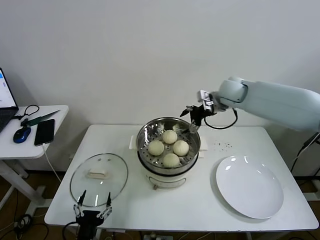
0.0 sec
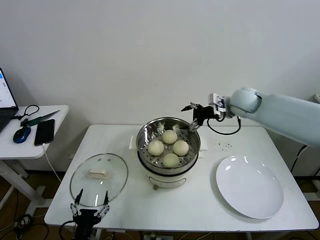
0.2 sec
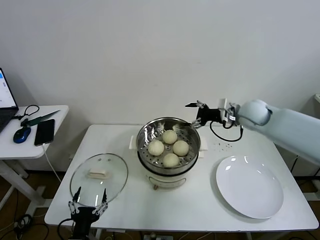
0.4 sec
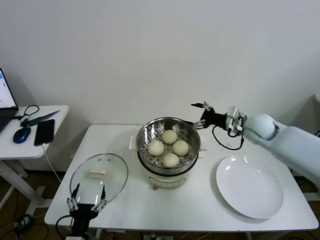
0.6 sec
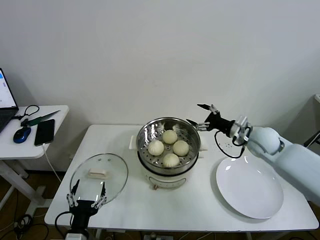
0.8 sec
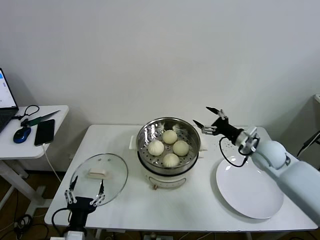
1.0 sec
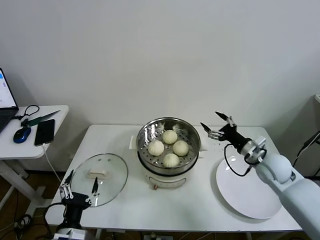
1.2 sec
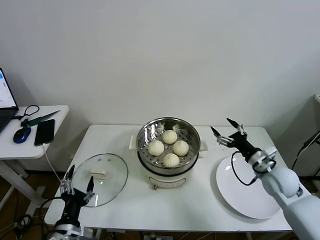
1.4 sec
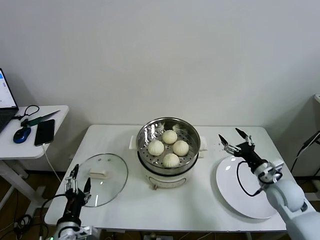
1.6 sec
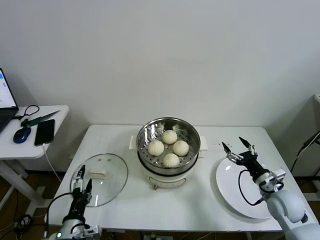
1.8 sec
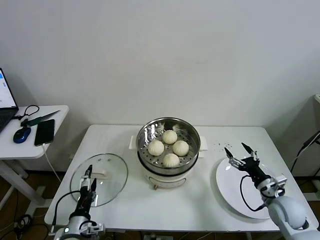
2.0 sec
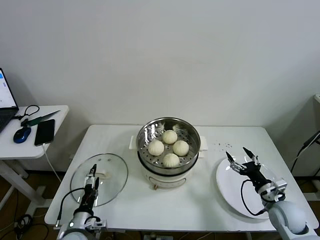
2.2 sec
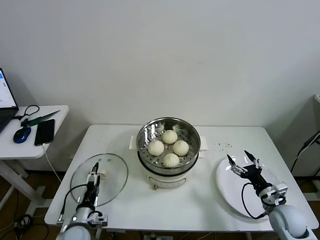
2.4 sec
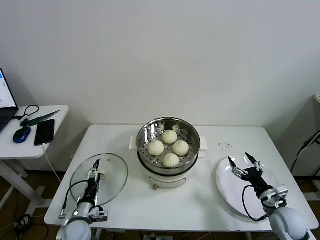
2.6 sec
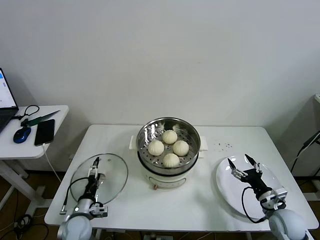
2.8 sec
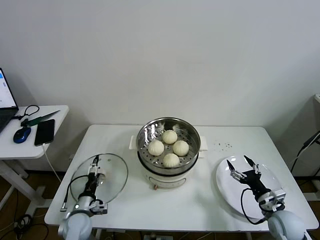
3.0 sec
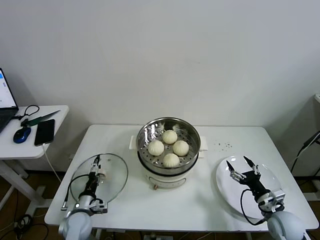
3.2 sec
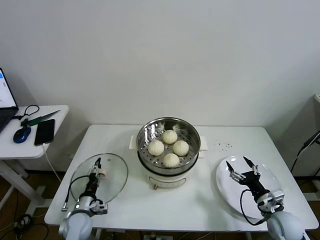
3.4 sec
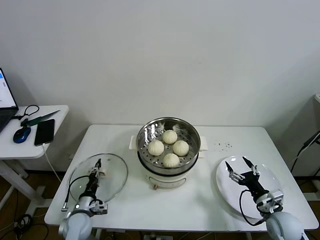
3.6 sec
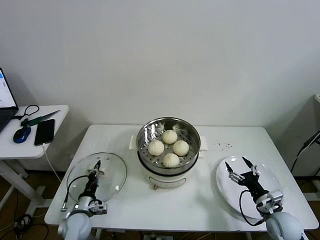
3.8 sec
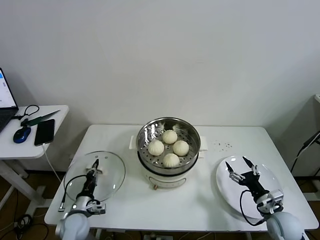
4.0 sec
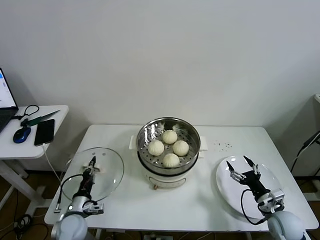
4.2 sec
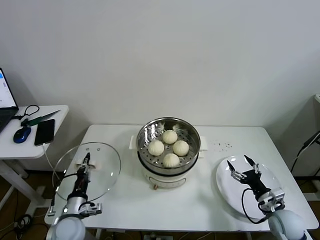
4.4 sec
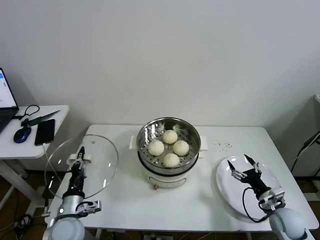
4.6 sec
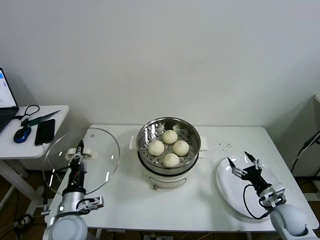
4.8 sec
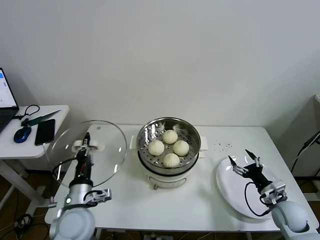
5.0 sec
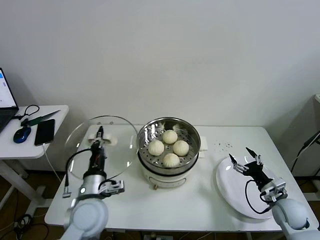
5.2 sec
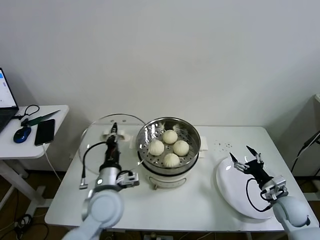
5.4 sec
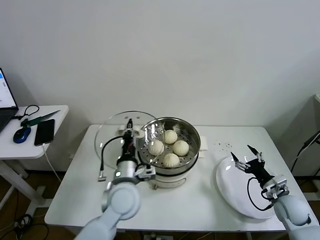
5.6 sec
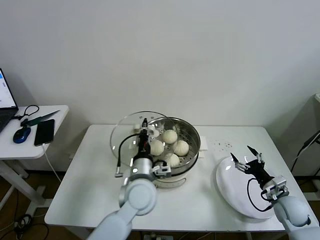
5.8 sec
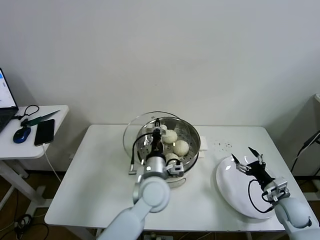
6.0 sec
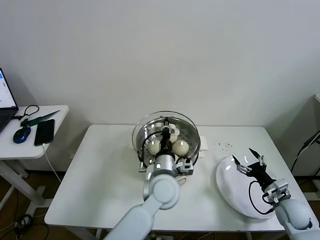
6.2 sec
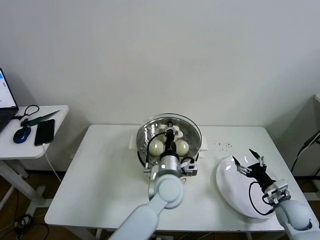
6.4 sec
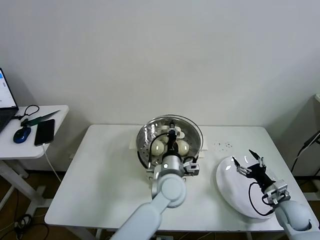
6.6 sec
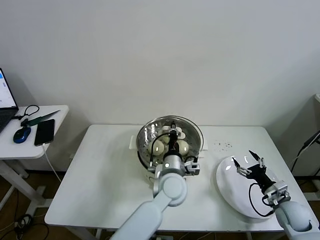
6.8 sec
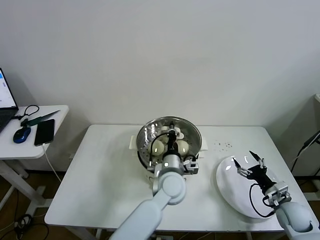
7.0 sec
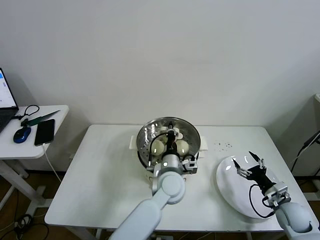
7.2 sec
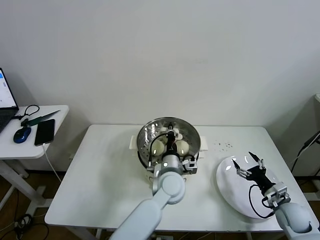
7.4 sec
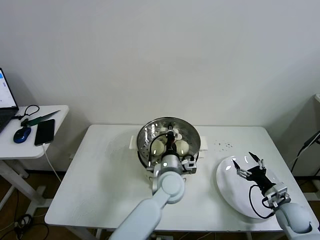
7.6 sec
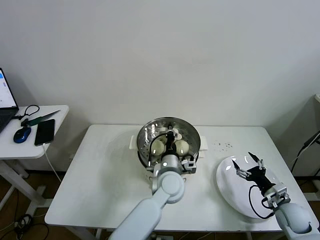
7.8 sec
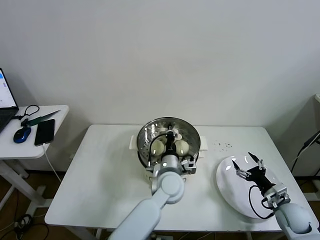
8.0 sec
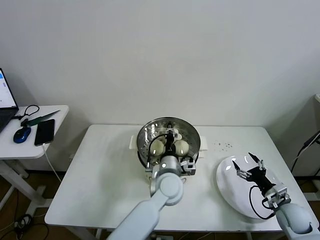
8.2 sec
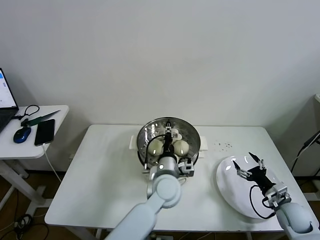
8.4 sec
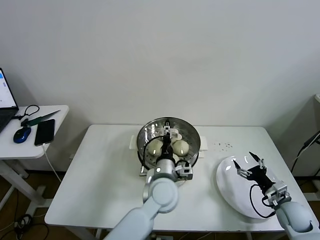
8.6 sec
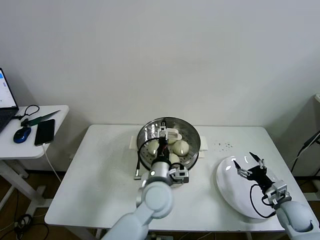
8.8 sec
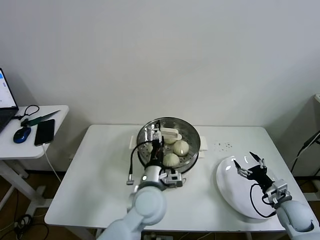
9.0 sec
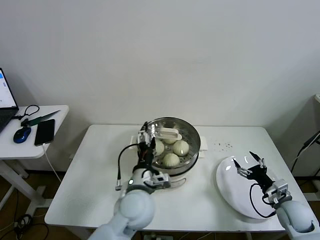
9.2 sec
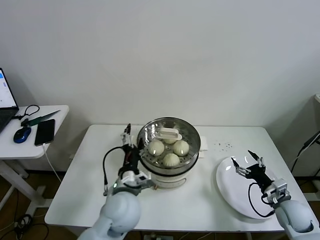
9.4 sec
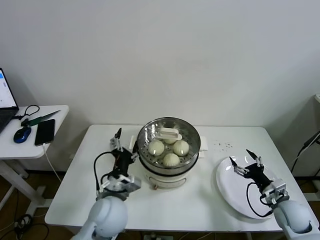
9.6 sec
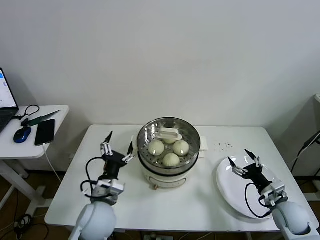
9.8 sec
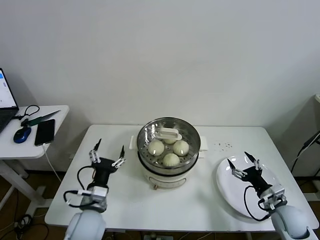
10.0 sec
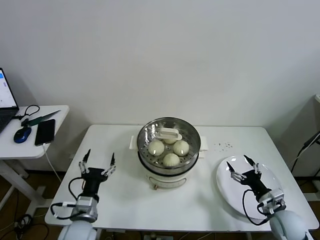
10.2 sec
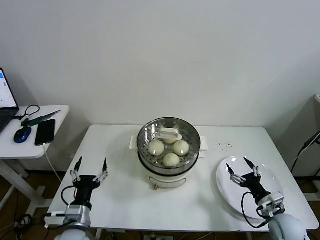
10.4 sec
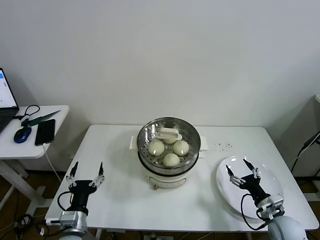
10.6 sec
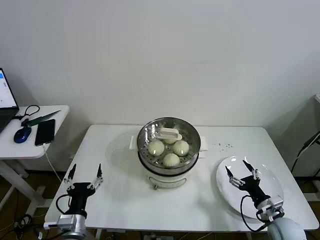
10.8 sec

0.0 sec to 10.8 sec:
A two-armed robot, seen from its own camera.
Task of the whole recording: take steamed baozi put them in steamer then cover it.
Step, 0.0 sec to 3.6 sec: Grasp the pot lid with left gripper.
Step, 4.0 sec to 8.2 sec: Place the pot lid on the steamer with left gripper.
0.0 sec to 1.6 sec: The right gripper heads backward, downward and to the right, covering approximately 35 cm. The left gripper ends up roughly 5 cm from where it was.
1.6 sec to 3.0 sec: The left gripper travels downward and forward by roughly 15 cm, while the right gripper travels downward and backward by approximately 10 cm.
3.0 sec to 4.6 sec: The left gripper is displaced upward by roughly 10 cm, and closes its fingers.
4.6 sec to 6.2 sec: The left gripper shifts some 30 cm to the right.
6.2 sec to 7.8 sec: The left gripper moves roughly 5 cm.
7.8 sec to 9.2 sec: The left gripper moves to the left and backward, about 10 cm, and opens its fingers.
9.2 sec to 10.8 sec: The left gripper heads to the left, backward and downward, covering approximately 25 cm. Meanwhile the right gripper ends up about 5 cm from where it was.
